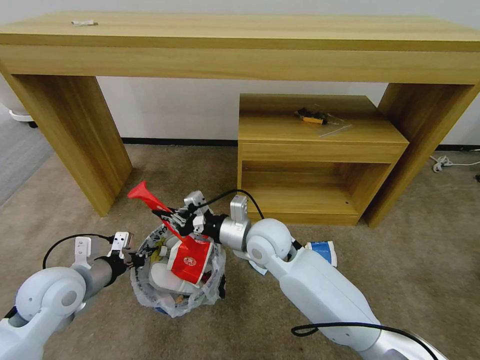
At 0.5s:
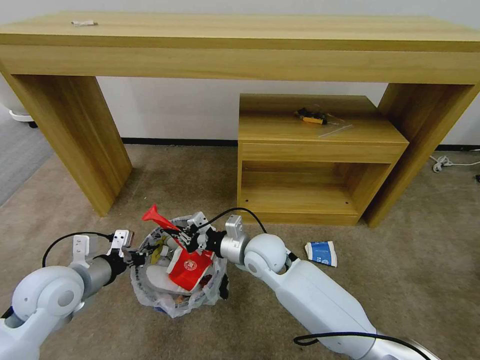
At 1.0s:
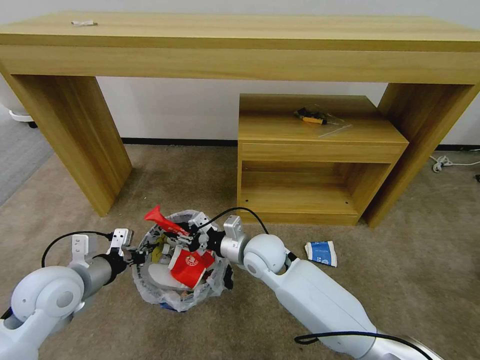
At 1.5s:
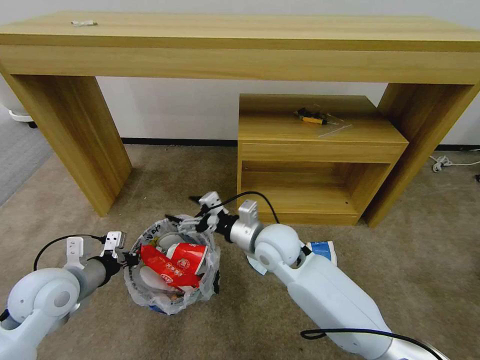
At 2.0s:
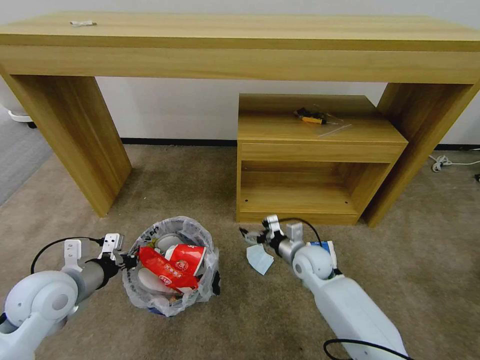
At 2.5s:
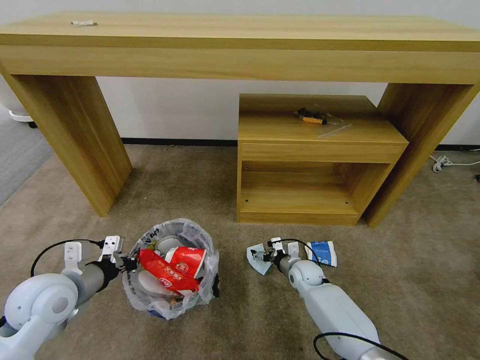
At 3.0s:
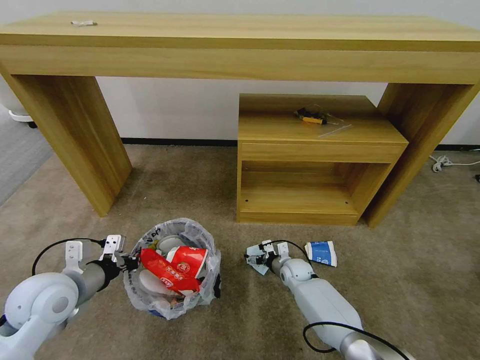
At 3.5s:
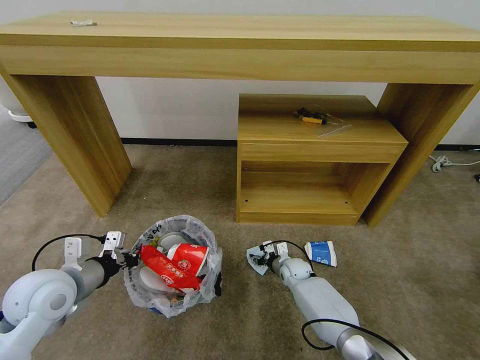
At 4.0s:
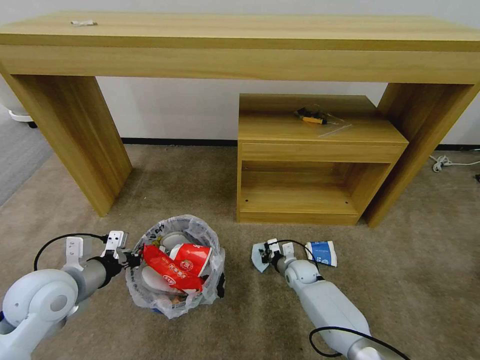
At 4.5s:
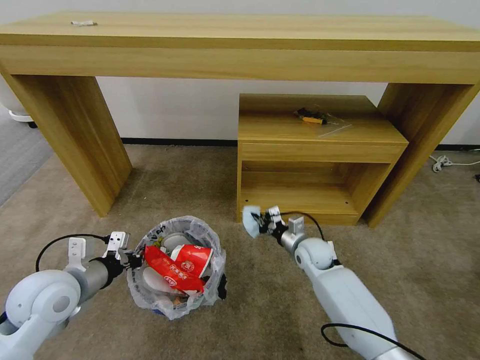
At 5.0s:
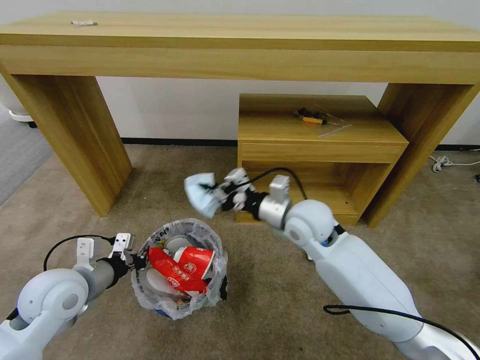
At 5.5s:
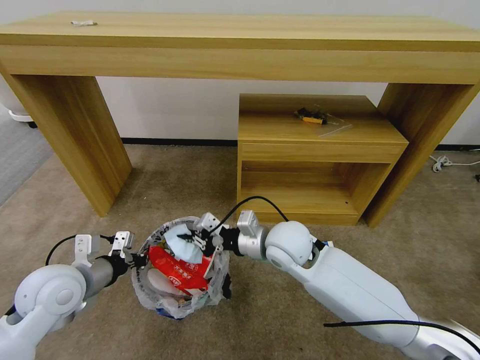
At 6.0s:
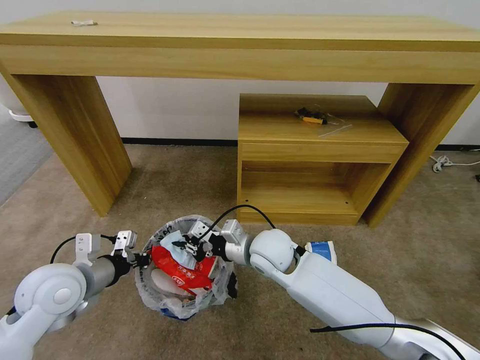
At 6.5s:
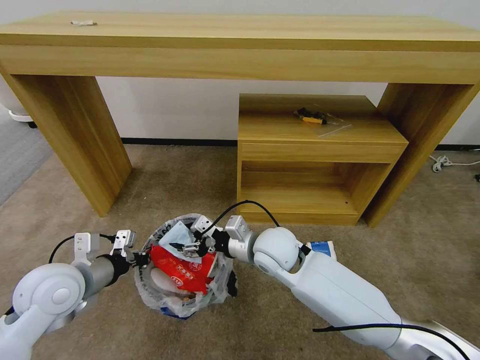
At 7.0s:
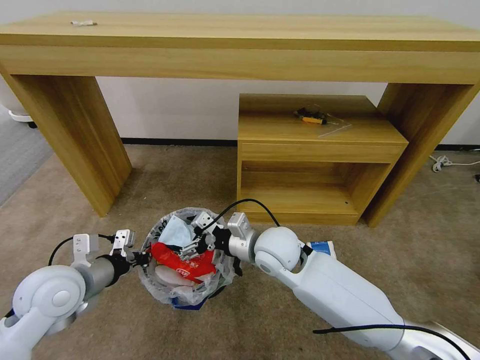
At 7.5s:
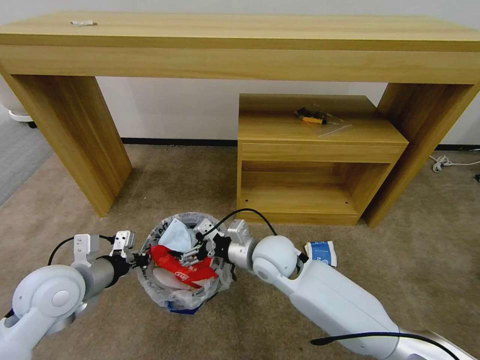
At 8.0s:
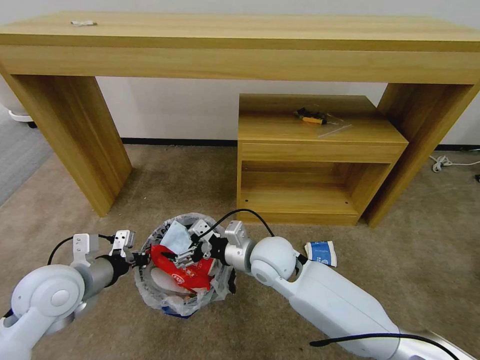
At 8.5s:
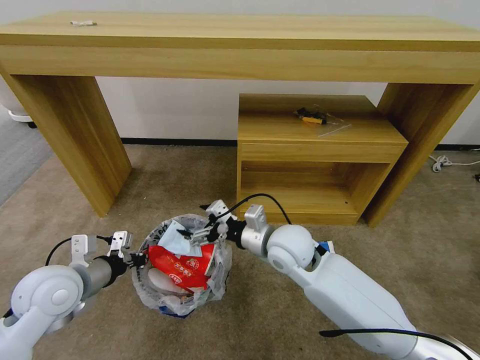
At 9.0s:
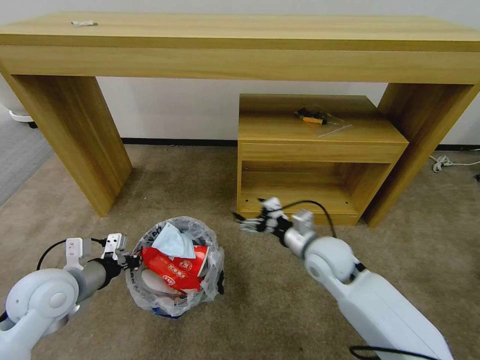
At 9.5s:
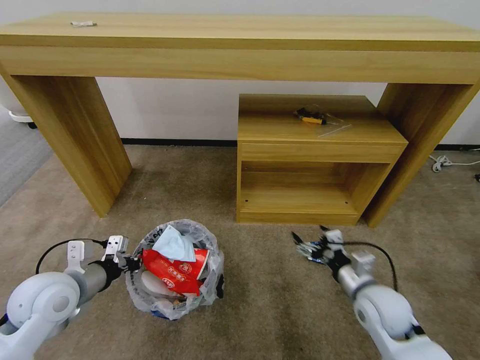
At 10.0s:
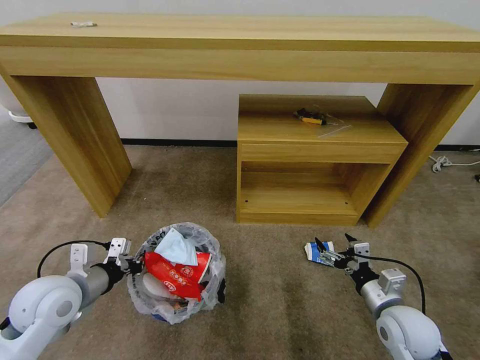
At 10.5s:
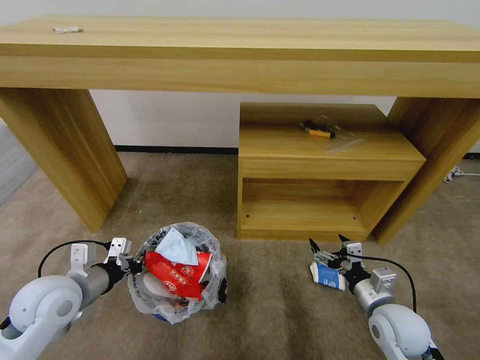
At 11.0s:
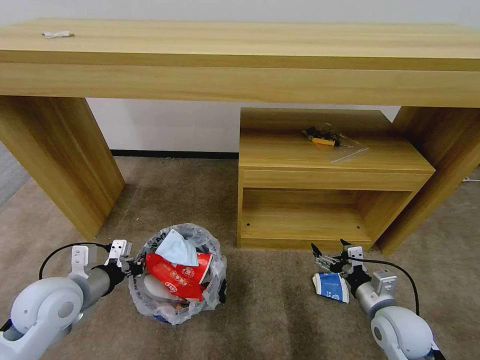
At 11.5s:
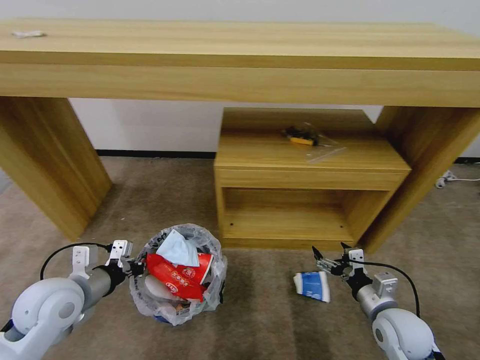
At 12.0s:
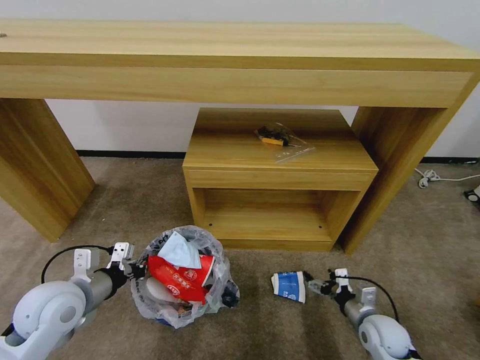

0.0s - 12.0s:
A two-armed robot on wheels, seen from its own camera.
Task of the whole recording: Pick up the trash bin and place the garbage on the floor into it.
0.0s - 2.0s: The right gripper is displaced to the right and downward by roughly 20 cm, and opens up.
2.0s - 4.0s: The right gripper shifts about 15 cm downward, and closes up.
4.0s - 6.0s: The right gripper heads upward and to the left, covering some 30 cm.
6.0s - 8.0s: The right gripper opens its fingers.
8.0s - 10.0s: The right gripper moves to the right and backward, approximately 30 cm.
10.0s - 12.0s: The right gripper travels downward by about 10 cm.

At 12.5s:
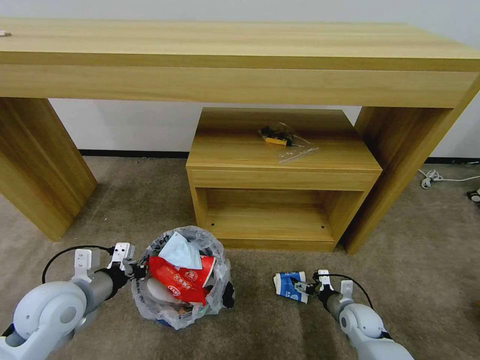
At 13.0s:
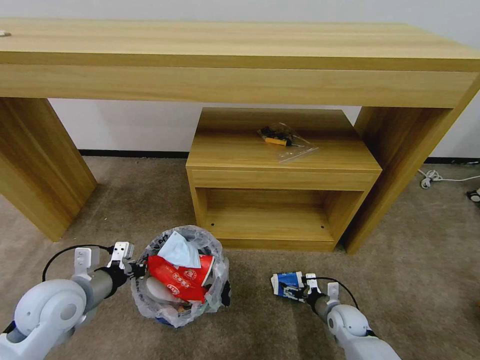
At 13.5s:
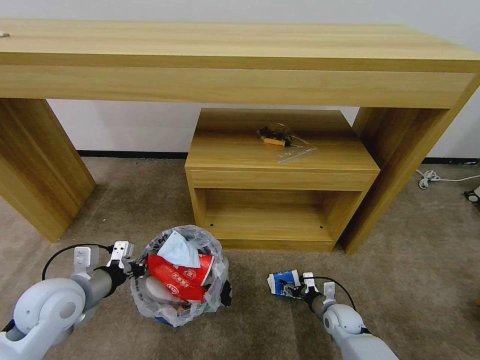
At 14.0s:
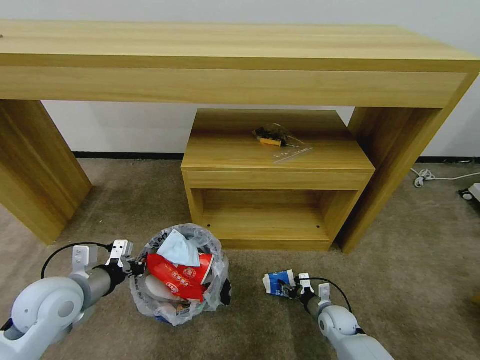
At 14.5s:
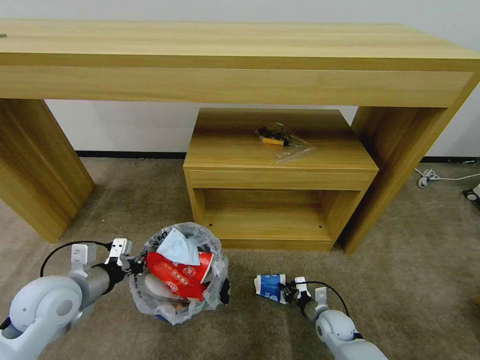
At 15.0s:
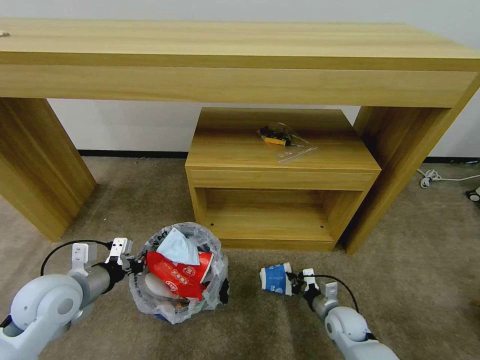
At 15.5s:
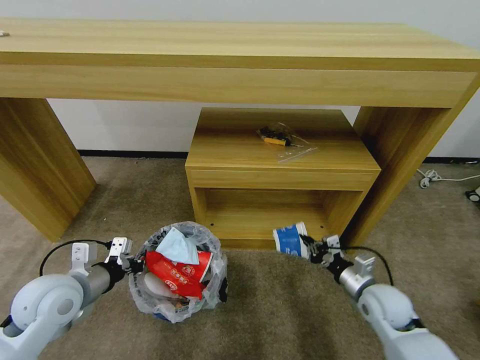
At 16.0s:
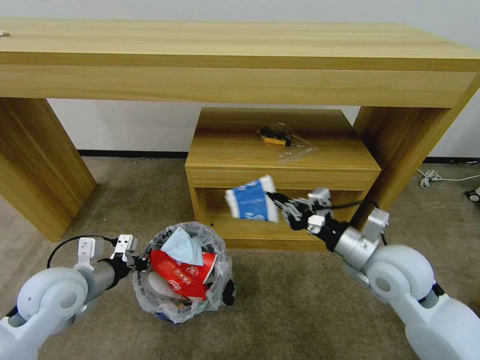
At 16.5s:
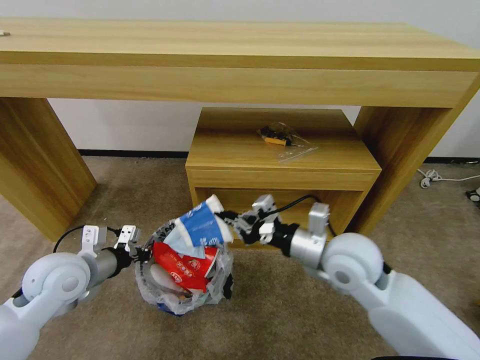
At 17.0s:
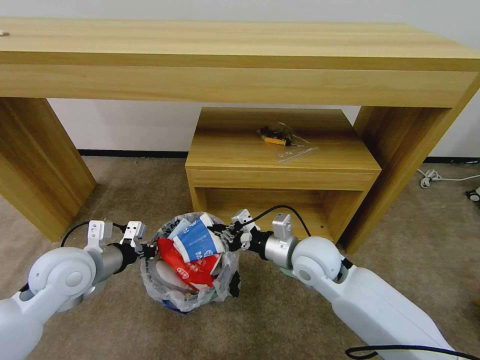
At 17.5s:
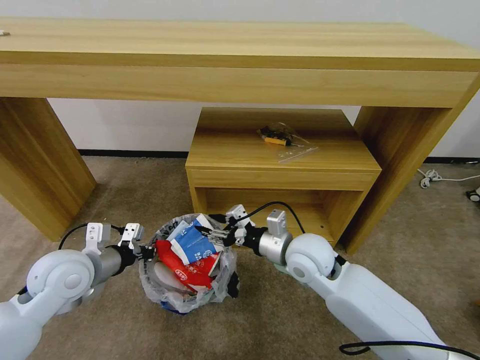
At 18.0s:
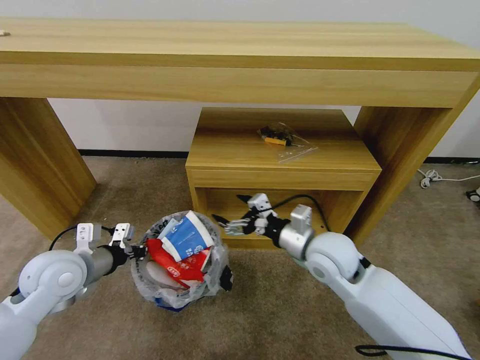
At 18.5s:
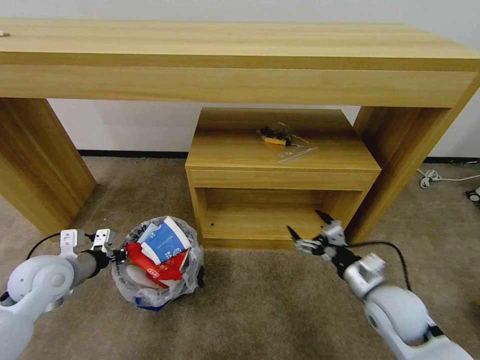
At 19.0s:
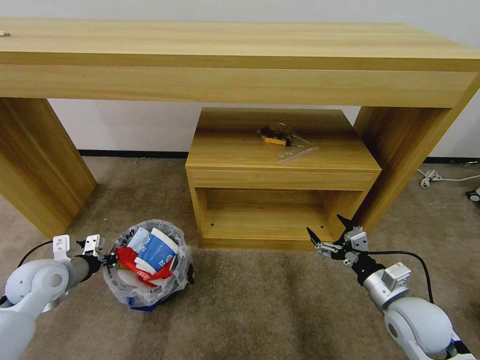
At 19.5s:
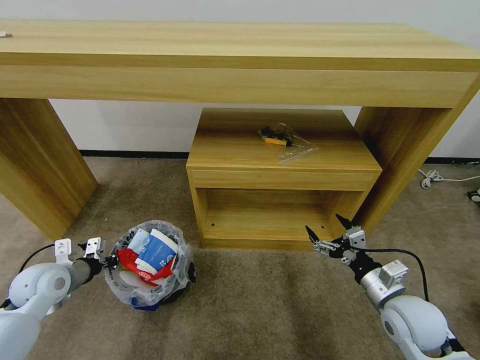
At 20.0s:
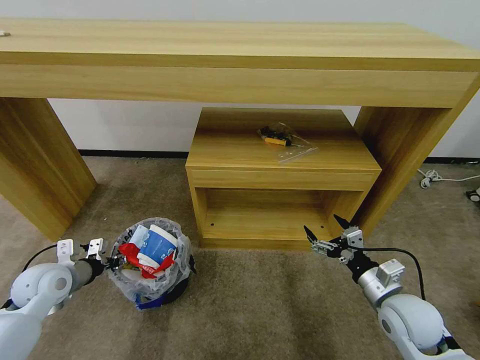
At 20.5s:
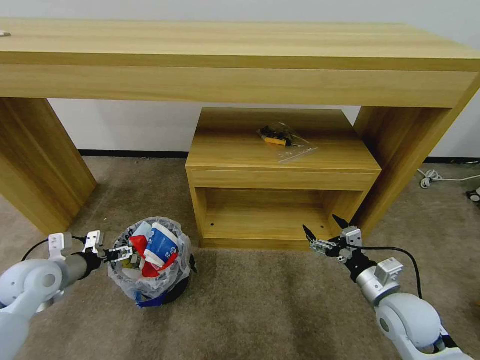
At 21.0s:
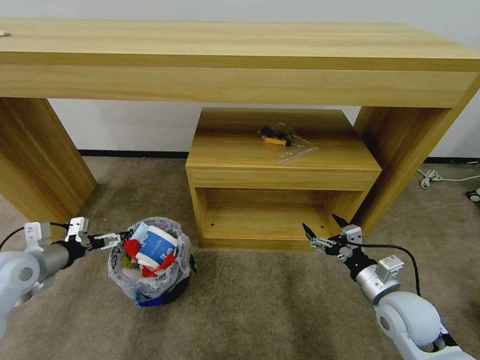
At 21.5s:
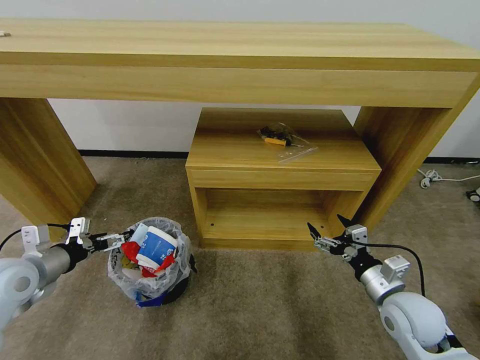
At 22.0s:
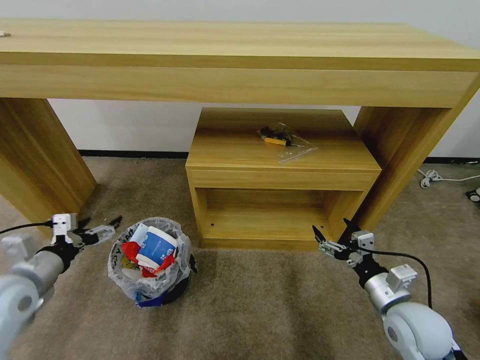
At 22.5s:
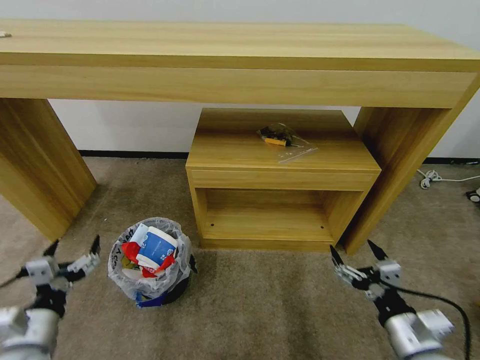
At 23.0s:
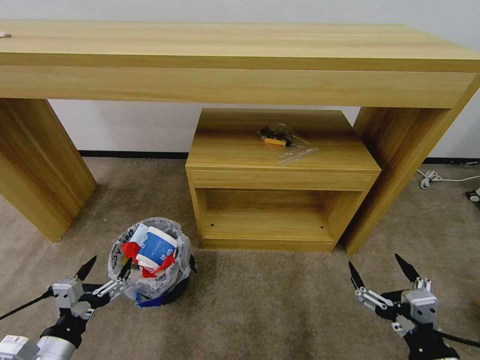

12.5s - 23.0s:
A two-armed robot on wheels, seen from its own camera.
Task of the whole recording: Pick up the trash bin and place the garbage on the floor into it.
12.5s - 14.5s: The right gripper is displaced to the left by some 5 cm, and closes its fingers.
14.5s - 16.5s: The right gripper shifts about 35 cm upward.
16.5s - 19.0s: The right gripper goes about 20 cm to the right, downward and backward, and opens up. The left gripper moves to the left and downward, roughly 10 cm.
19.0s - 21.0s: The left gripper ends up about 5 cm from where it was, and opens up.
21.0s - 23.0s: The right gripper heads backward, covering roughly 20 cm, while the left gripper travels backward and to the right by approximately 20 cm.

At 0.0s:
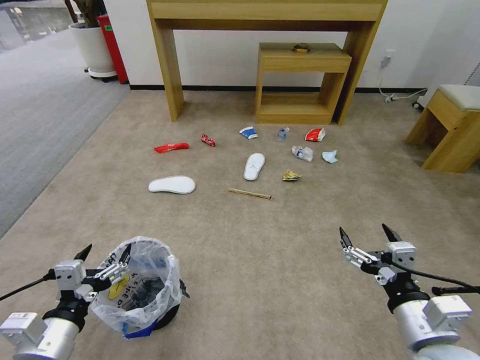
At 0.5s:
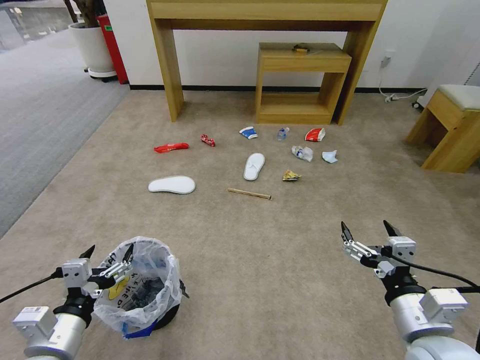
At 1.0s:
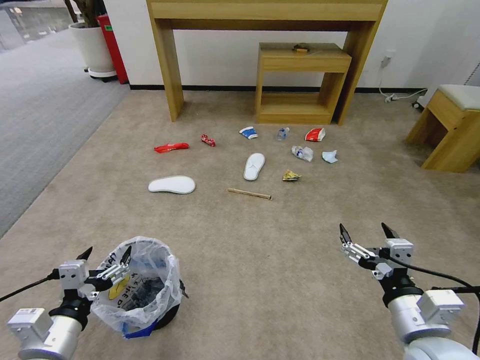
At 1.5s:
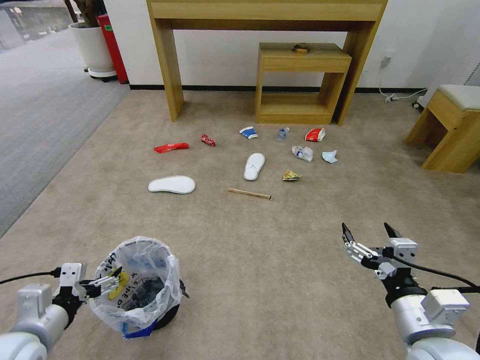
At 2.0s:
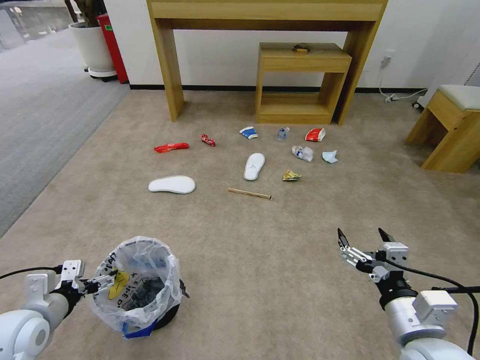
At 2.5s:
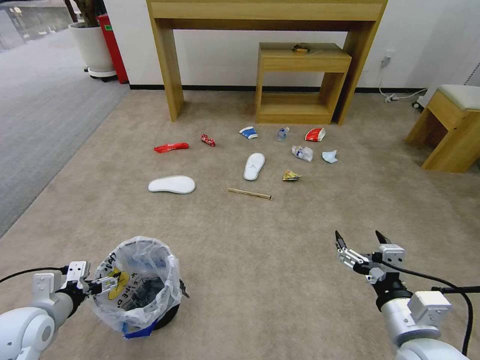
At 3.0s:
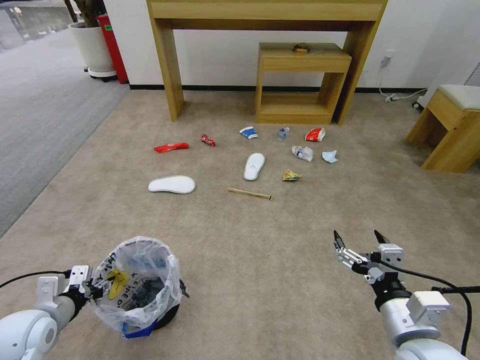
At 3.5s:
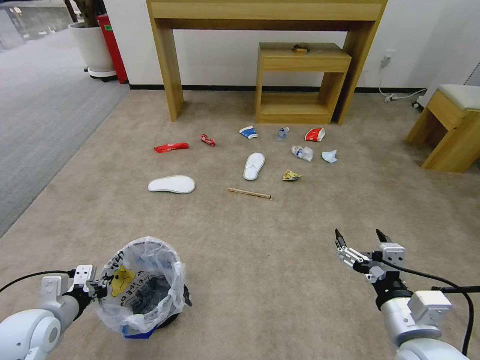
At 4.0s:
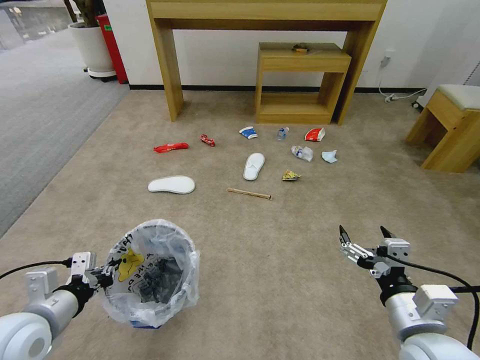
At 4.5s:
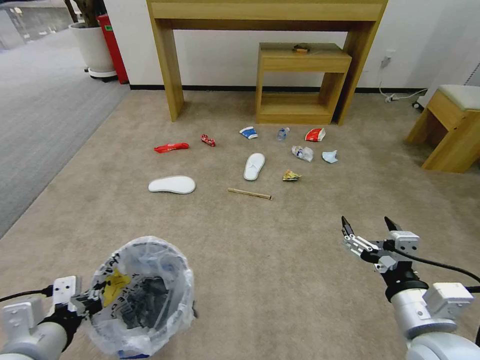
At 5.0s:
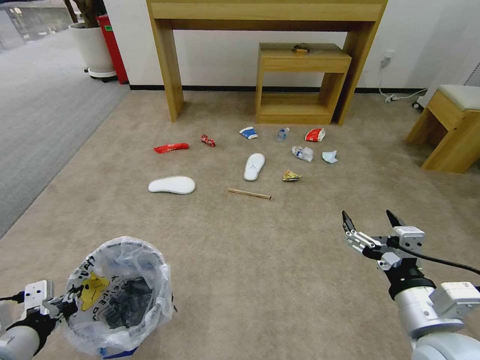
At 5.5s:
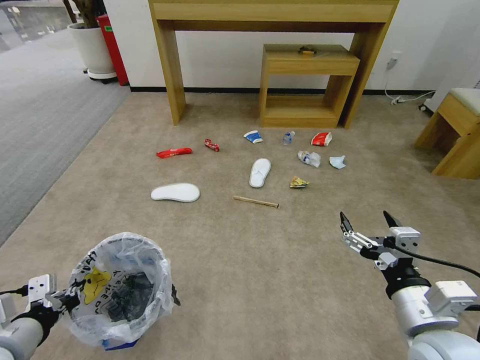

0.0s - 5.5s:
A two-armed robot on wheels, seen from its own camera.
Task of the whole recording: Pick up the trash bin and place the garbage on the floor into it.
2.0s - 3.5s: The left gripper closes up.
3.5s - 5.5s: The left gripper moves upward and backward, about 10 cm.
